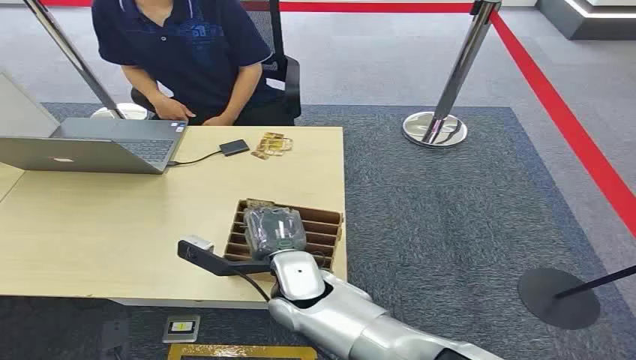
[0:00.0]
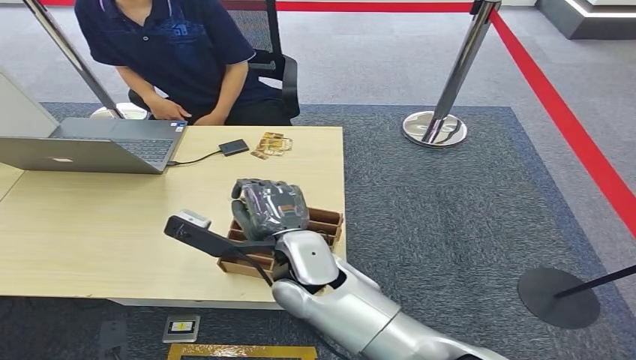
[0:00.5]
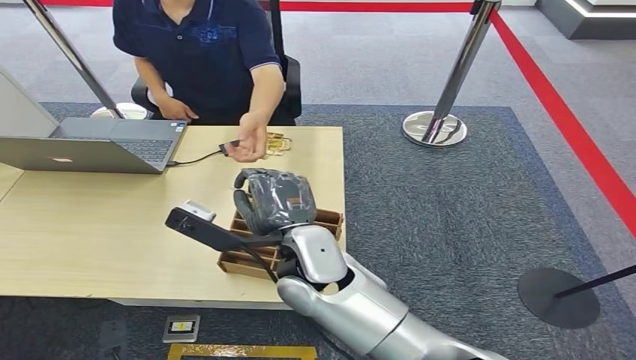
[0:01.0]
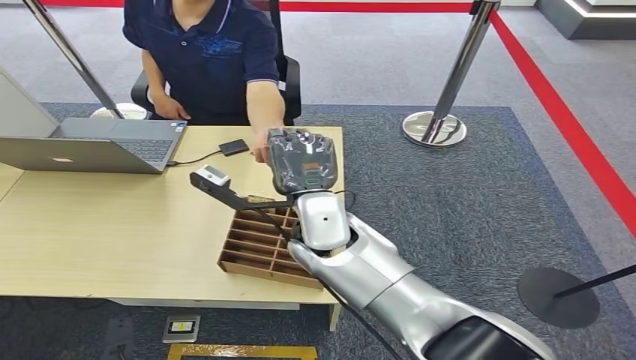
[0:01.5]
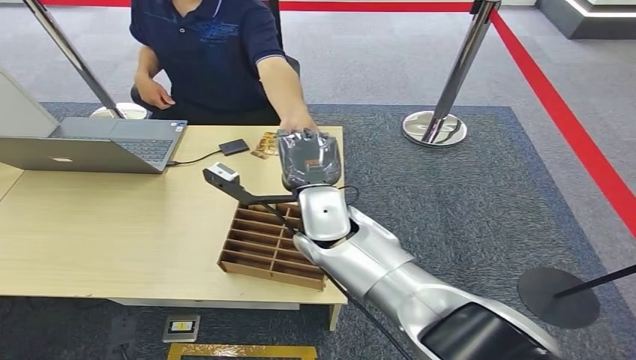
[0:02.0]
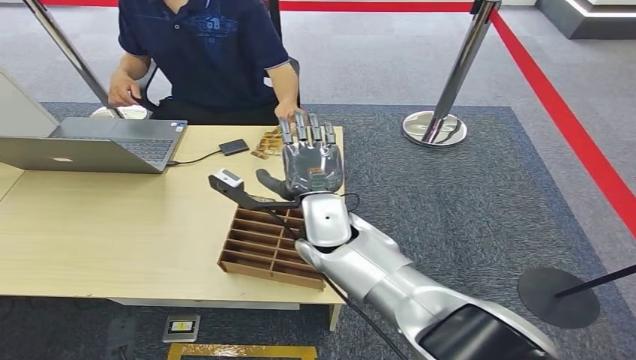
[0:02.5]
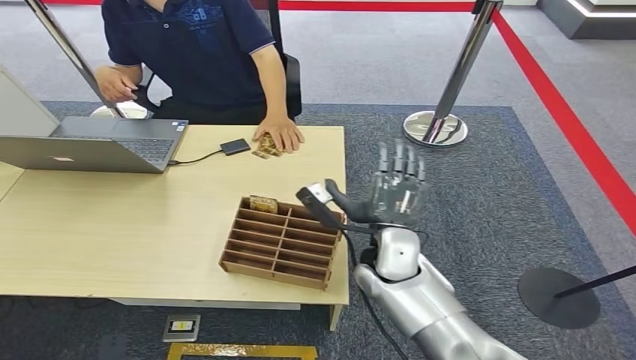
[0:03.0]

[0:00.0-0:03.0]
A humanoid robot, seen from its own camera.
Step, 0:00.0 to 0:00.5: Pick up the key card from the card box.
Step, 0:01.0 to 0:03.0: Hand the key card to the target.
0:01.5 to 0:03.0: The right hand moves to the right and downward, some 10 cm.
